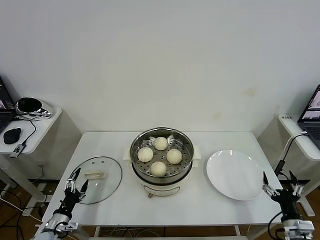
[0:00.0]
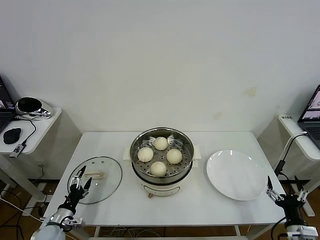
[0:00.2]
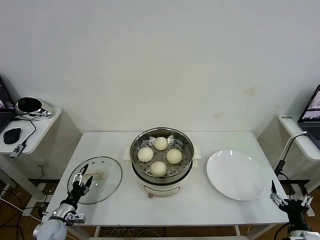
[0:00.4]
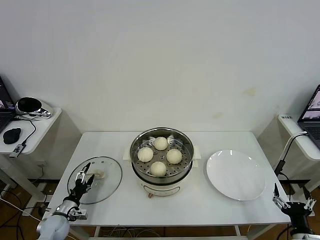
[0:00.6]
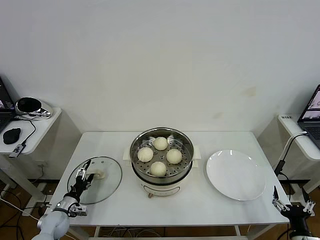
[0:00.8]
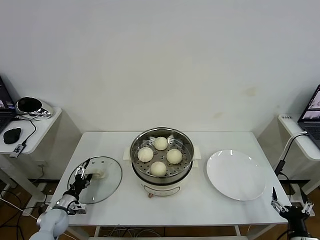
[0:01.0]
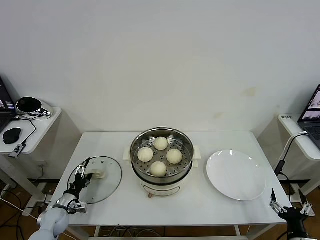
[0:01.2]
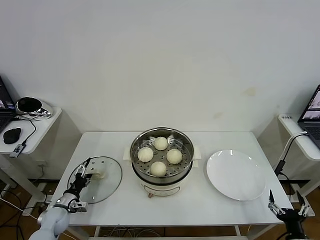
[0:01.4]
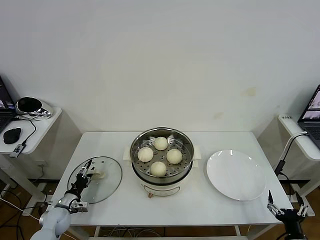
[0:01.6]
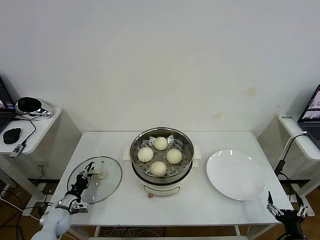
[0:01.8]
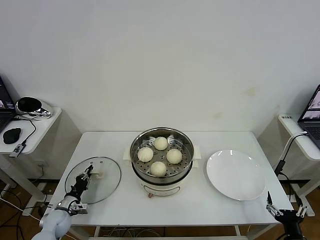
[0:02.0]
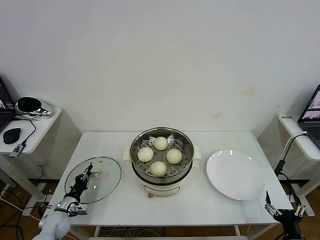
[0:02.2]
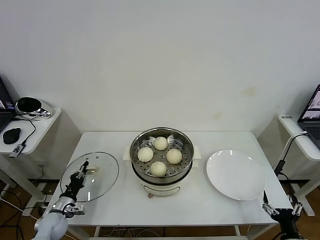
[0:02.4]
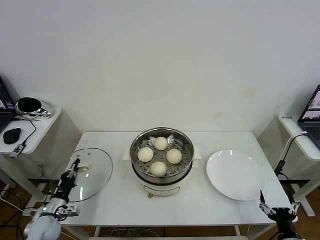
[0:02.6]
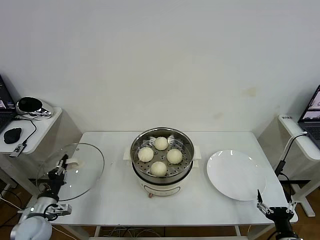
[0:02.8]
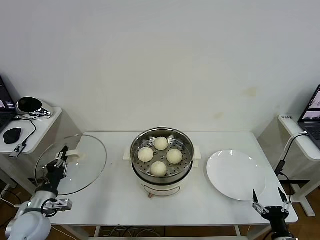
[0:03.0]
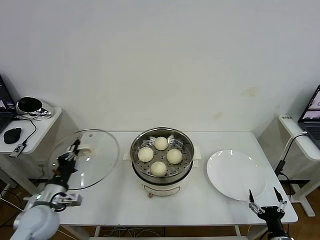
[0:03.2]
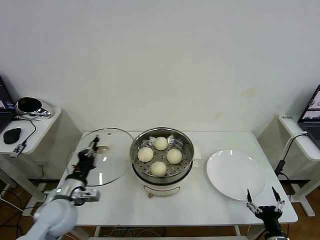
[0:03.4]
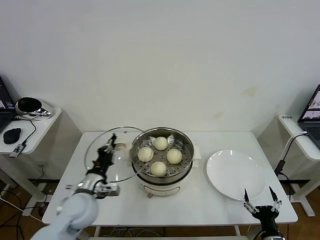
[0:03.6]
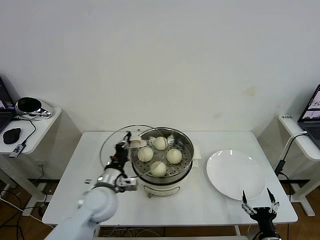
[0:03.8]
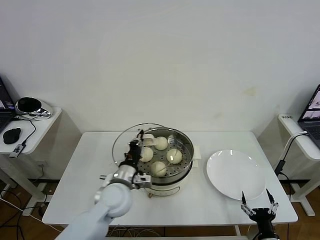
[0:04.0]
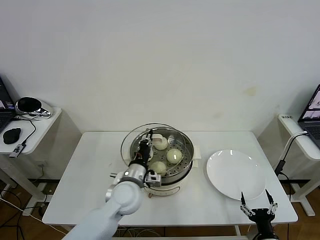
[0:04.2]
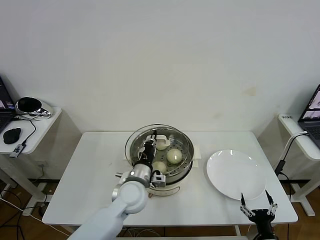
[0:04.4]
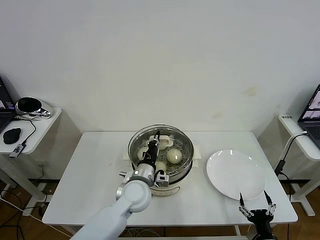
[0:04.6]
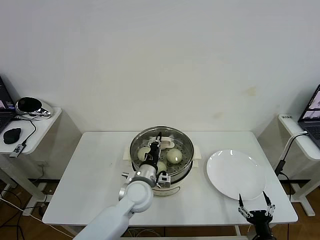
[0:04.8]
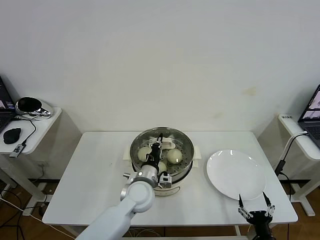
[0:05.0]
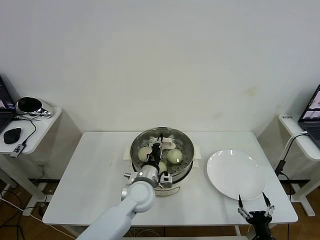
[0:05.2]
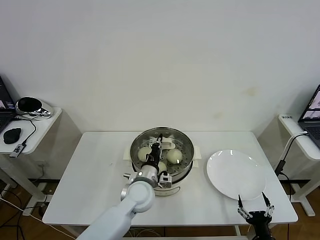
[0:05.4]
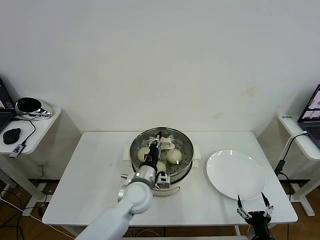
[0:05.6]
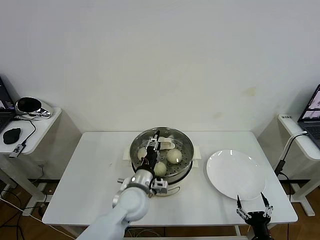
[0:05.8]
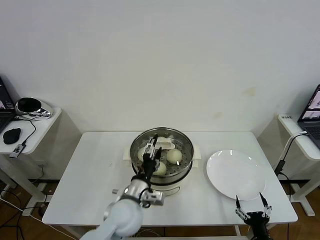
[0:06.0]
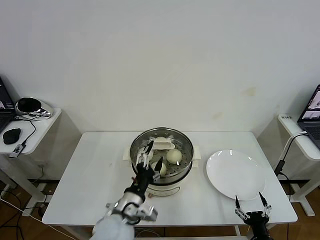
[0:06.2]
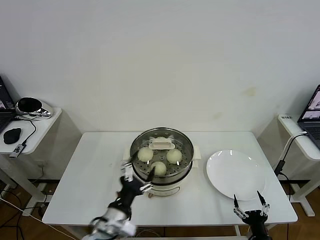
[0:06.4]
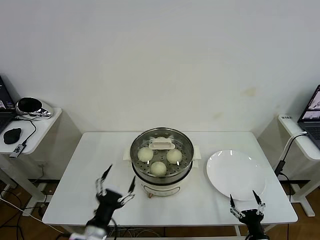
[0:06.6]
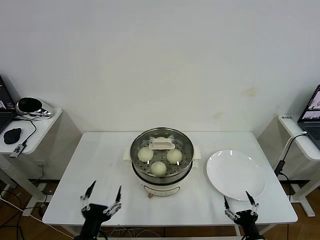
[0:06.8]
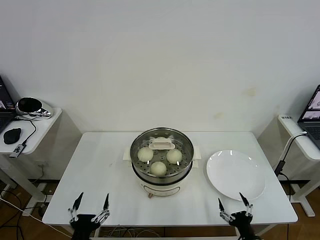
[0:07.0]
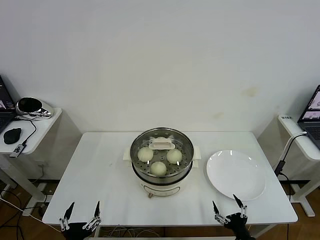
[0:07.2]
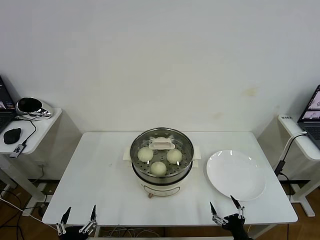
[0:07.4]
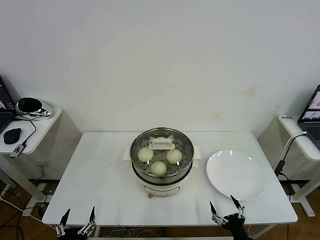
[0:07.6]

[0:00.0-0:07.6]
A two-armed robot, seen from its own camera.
Task of the whole recording: take steamed baozi put them in steamer then cover it.
Step, 0:00.0 to 0:02.2: Grasp the pot lid with left gripper.
Step, 0:02.4 to 0:06.2: Place the pot lid on the steamer with left gripper.
0:00.0 to 0:01.6: The right gripper travels backward by approximately 5 cm. The left gripper shifts about 10 cm forward.
0:01.6 to 0:03.0: The left gripper moves upward and backward, roughly 15 cm, and closes.
0:03.0 to 0:04.6: The left gripper moves to the right, roughly 30 cm; the right gripper ends up some 5 cm from where it was.
0:04.6 to 0:06.0: The left gripper is displaced backward by approximately 5 cm, and opens its fingers.
0:06.0 to 0:07.6: The left gripper shifts approximately 30 cm backward and to the left.
